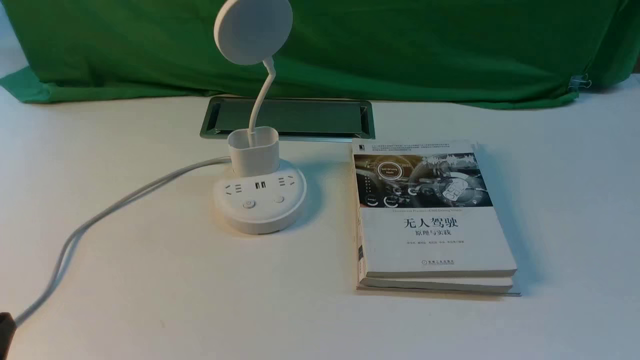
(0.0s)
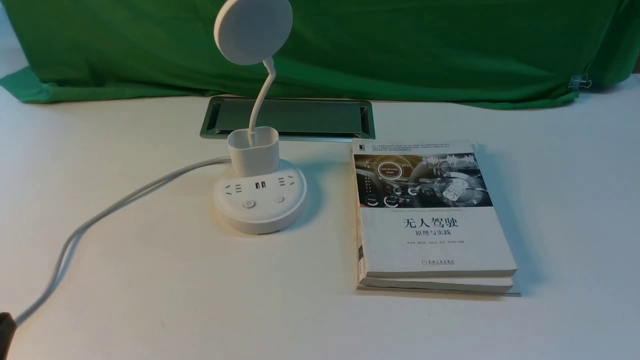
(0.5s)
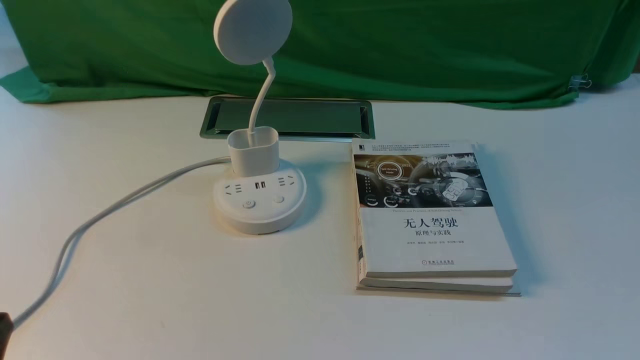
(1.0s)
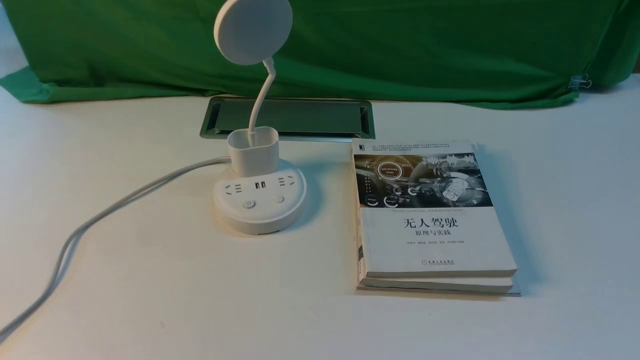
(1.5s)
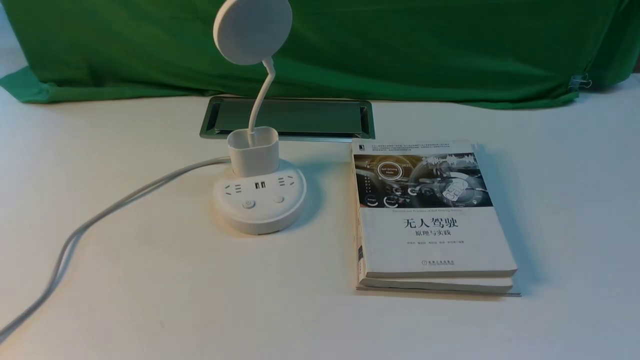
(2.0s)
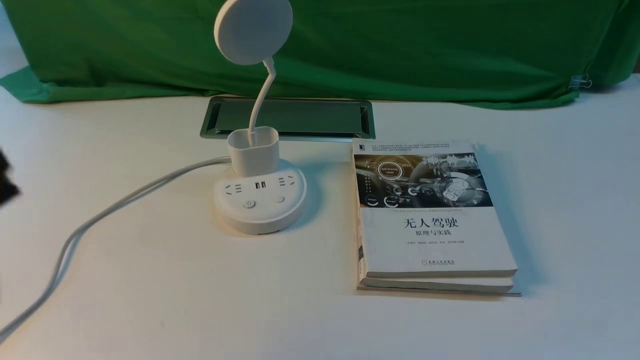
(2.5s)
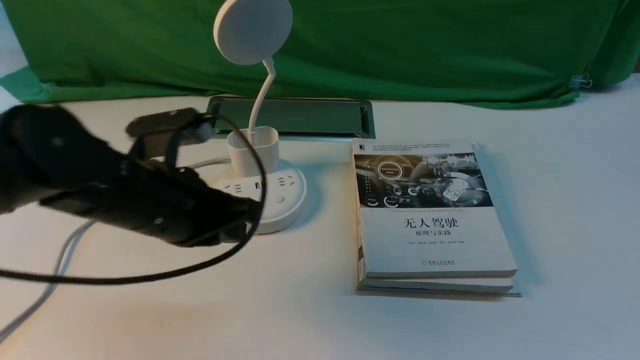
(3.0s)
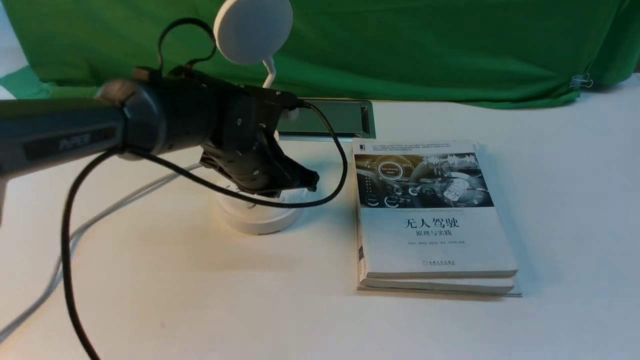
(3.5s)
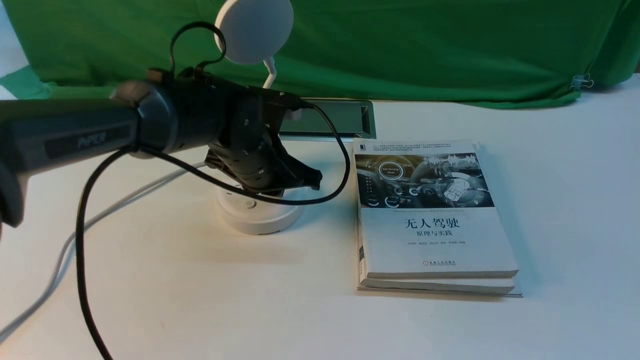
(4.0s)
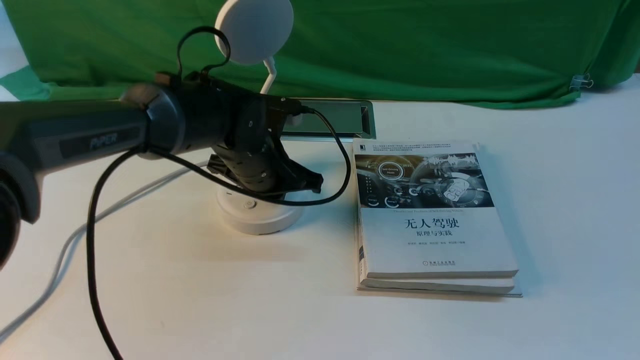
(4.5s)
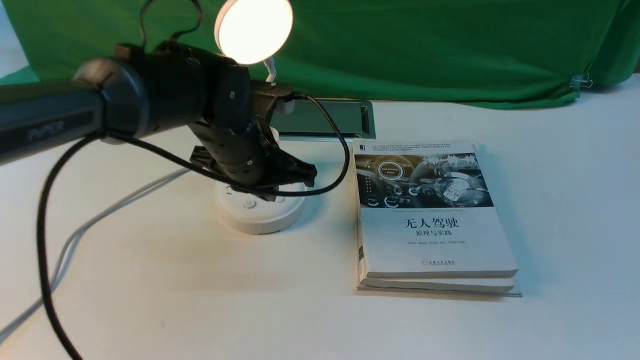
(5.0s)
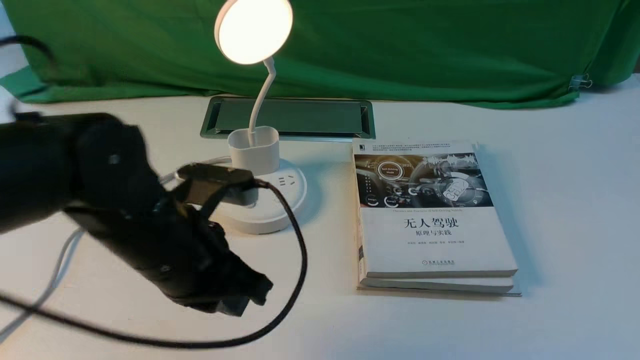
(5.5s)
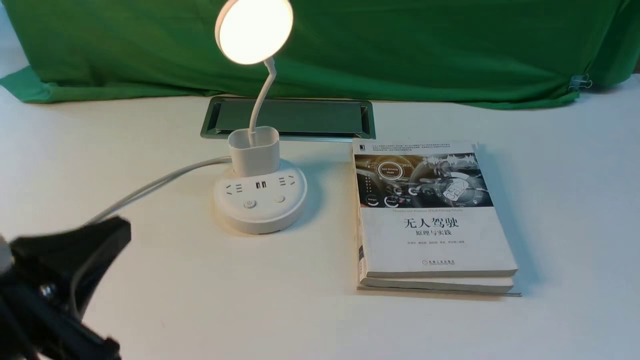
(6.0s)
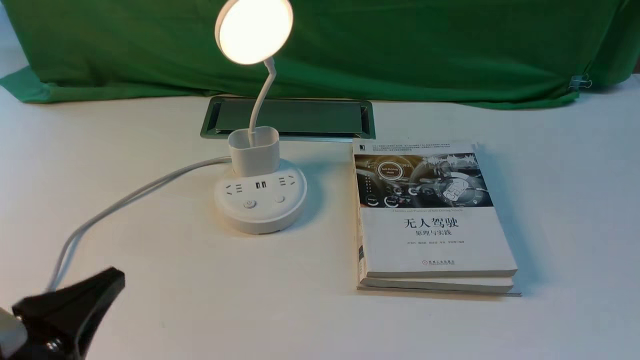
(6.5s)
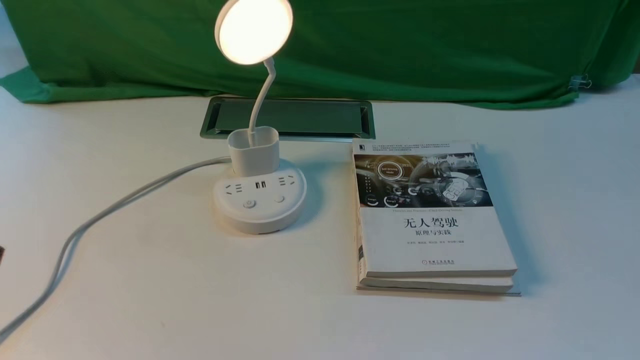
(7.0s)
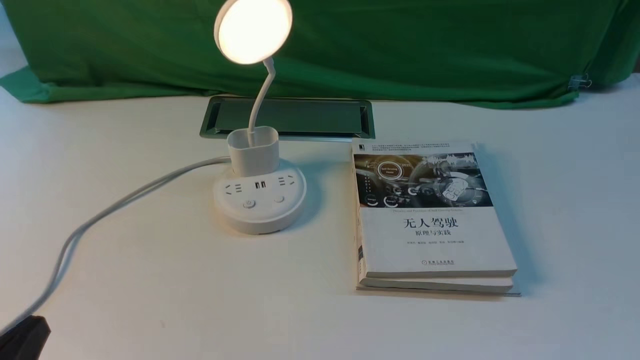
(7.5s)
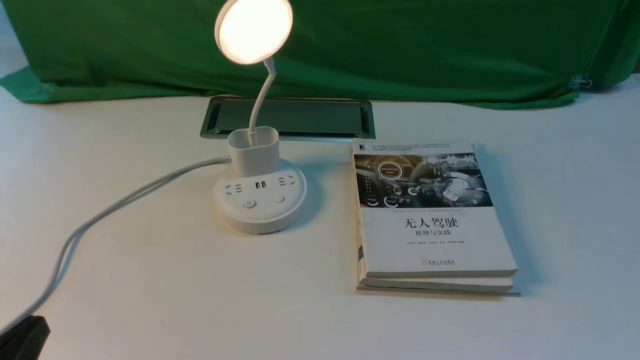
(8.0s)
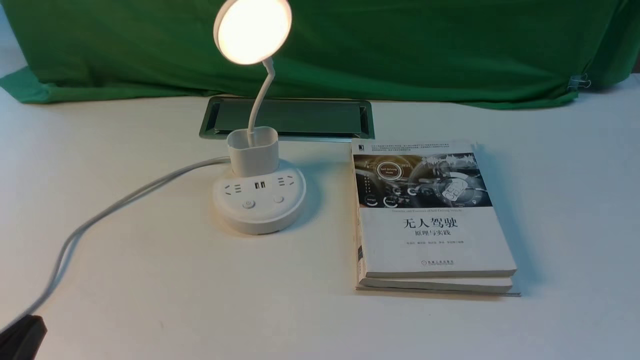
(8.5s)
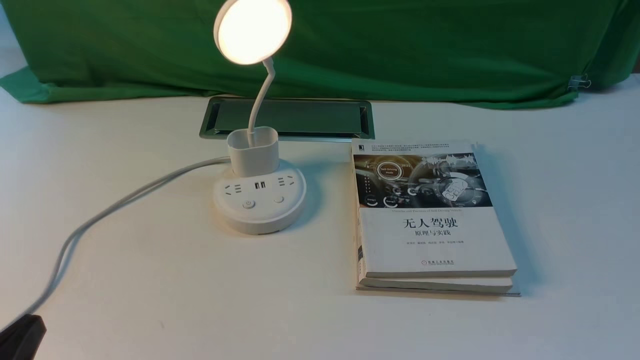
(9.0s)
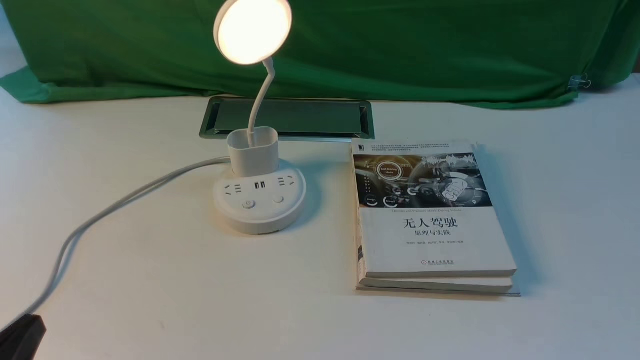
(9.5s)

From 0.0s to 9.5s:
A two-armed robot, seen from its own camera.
Step, from 0.0s to 5.0s: use the left arm to press the button switch on the lamp holder.
From 2.0s to 4.0s: The left gripper goes approximately 40 cm forward and to the right, and closes its fingers.
From 4.0s to 5.5s: The left gripper travels backward by some 10 cm, and opens.
From 5.5s to 7.5s: The left gripper heads backward and to the left, covering some 25 cm.
